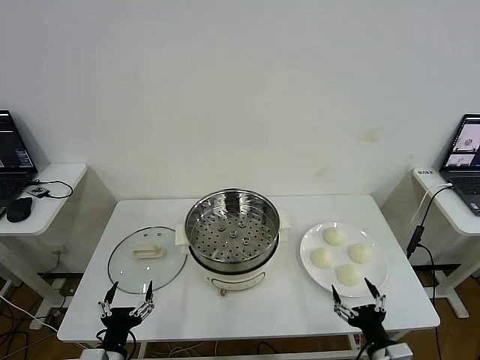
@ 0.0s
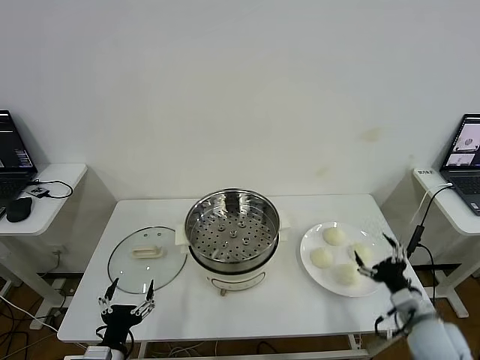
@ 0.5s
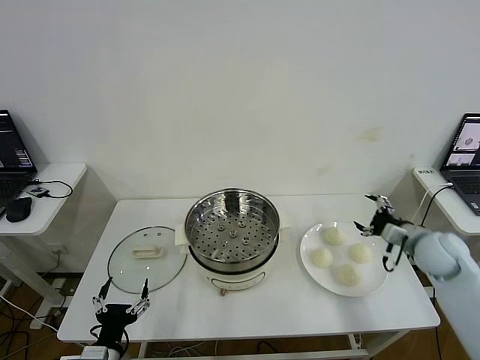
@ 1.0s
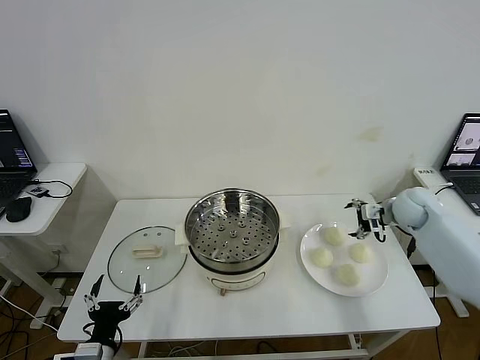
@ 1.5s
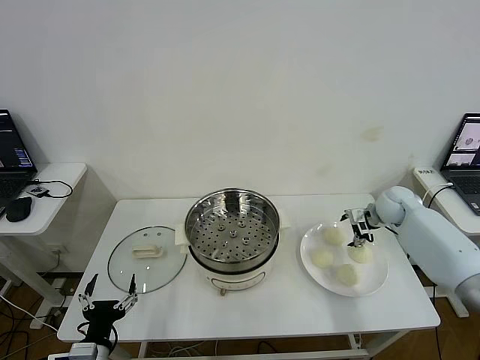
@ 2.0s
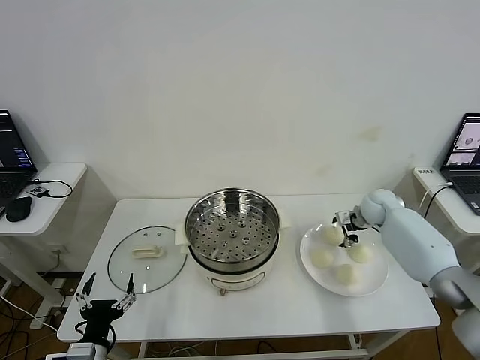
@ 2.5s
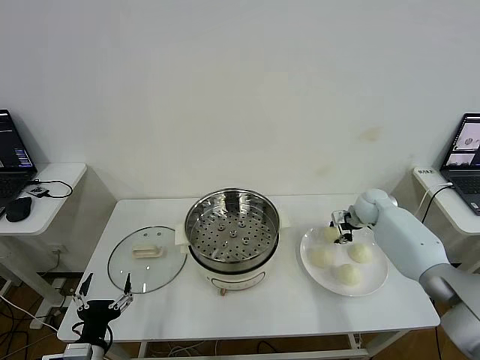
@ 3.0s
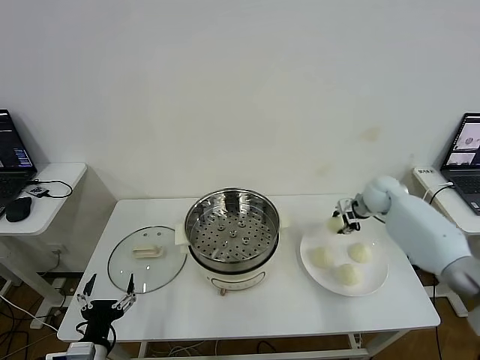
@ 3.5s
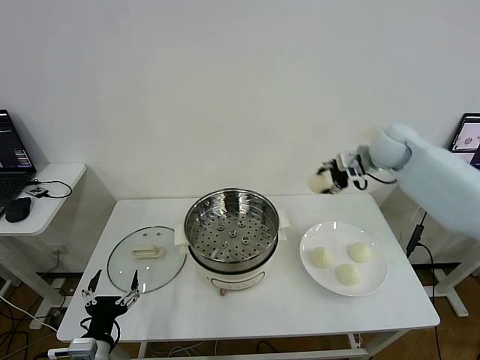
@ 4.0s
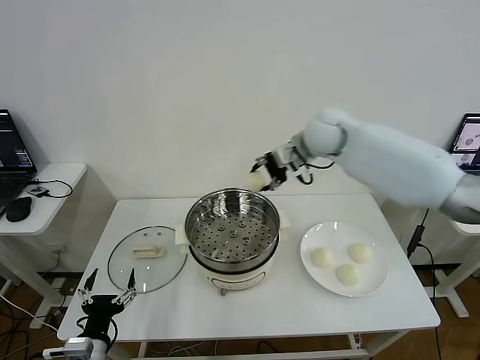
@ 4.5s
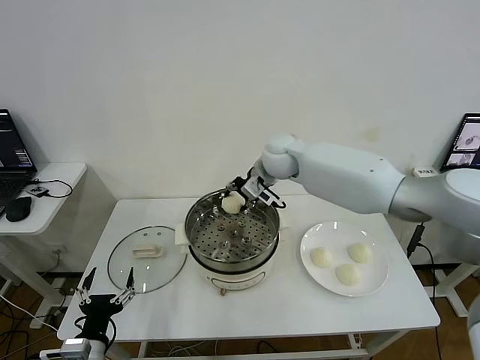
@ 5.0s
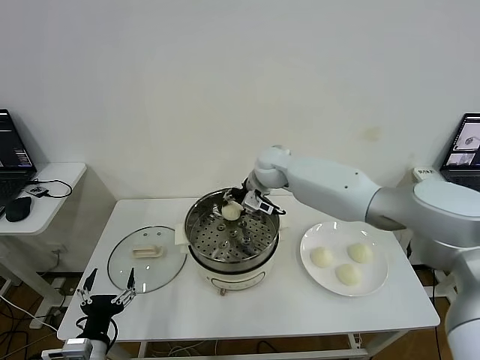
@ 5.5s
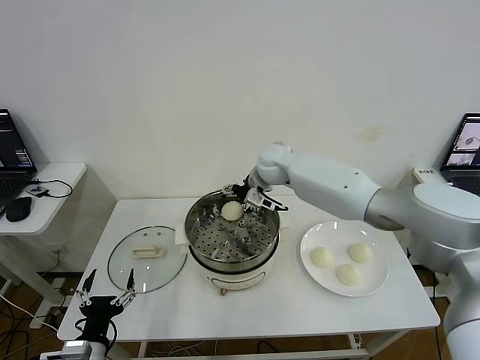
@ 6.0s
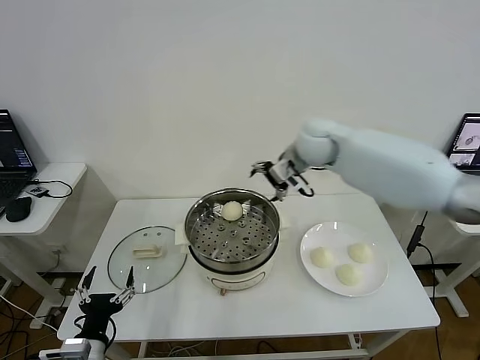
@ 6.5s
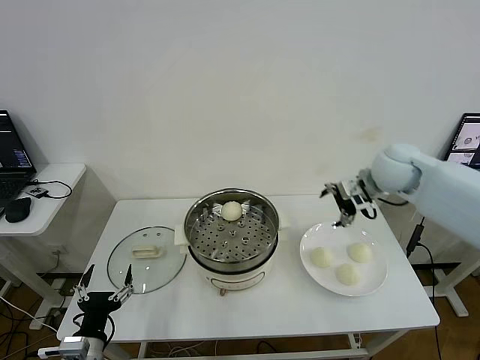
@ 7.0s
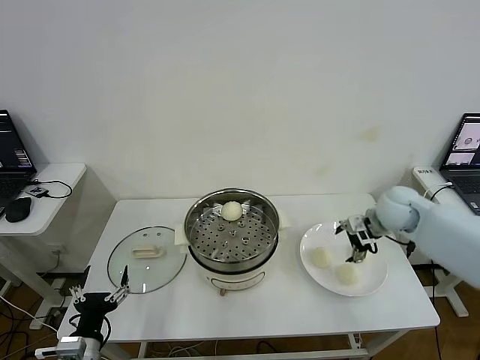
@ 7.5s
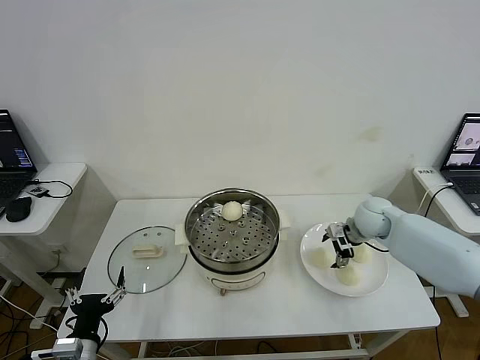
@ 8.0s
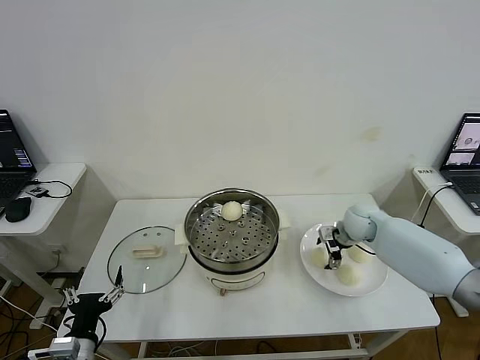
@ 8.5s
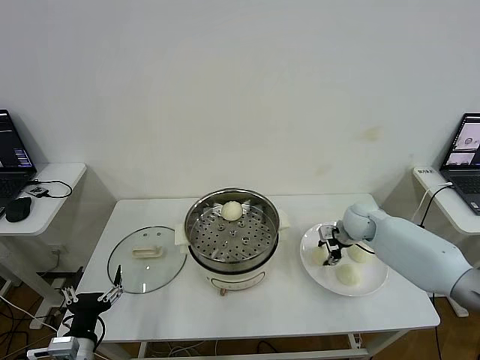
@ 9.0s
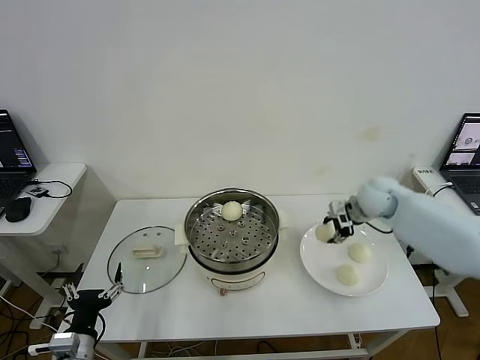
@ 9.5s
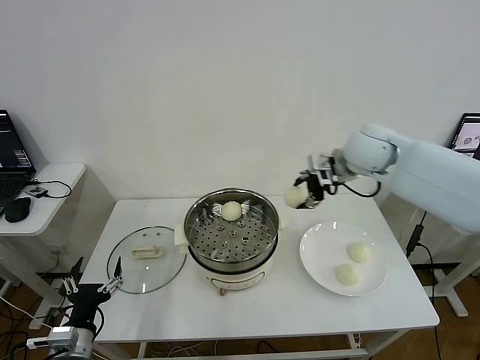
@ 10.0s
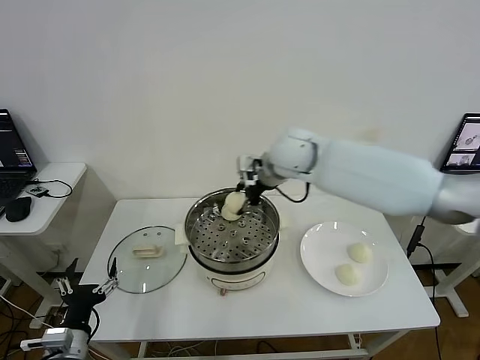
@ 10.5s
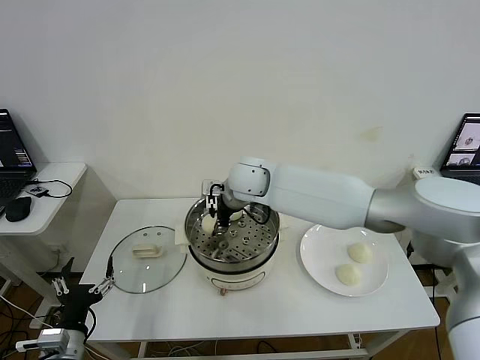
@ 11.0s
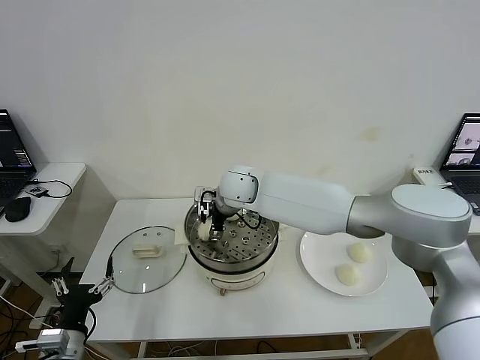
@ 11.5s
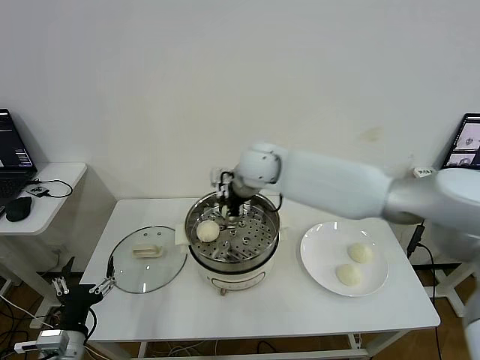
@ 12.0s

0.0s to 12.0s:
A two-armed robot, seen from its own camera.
Step, 0.0s to 3.0s: Grasp the baozi in the plate with right gripper.
Step, 3.5s to 5.5s: Place the baozi on the steamer with right gripper.
Step, 6.0s to 9.0s: Grasp the baozi in the plate with right gripper.
Step, 9.5s to 11.5s: Place the baozi on the steamer with right gripper.
2.0s to 4.0s: The right gripper heads upward and to the left, covering approximately 20 cm, and closes its fingers.
4.0s to 6.0s: The right gripper heads to the left, covering some 20 cm, and opens.
6.0s to 8.0s: The right gripper goes some 25 cm to the right and downward.
8.0s to 10.0s: The right gripper heads upward and to the left, covering about 25 cm, and closes its fingers.
10.0s to 12.0s: The right gripper is displaced to the left by approximately 15 cm, and opens up.

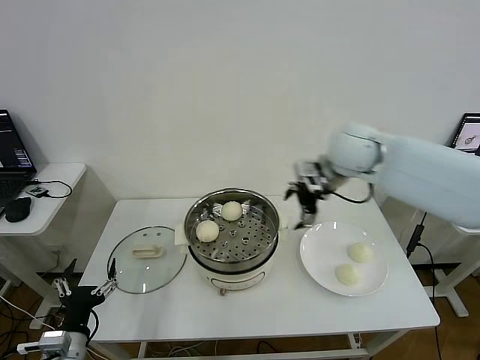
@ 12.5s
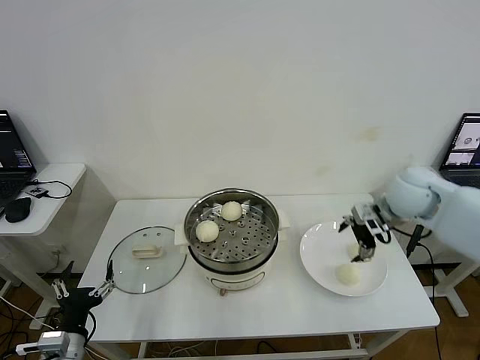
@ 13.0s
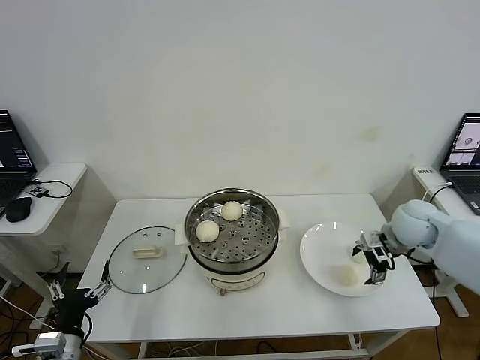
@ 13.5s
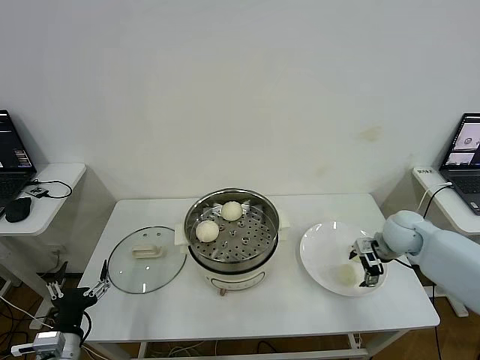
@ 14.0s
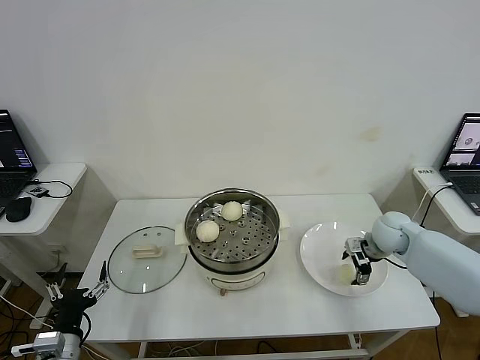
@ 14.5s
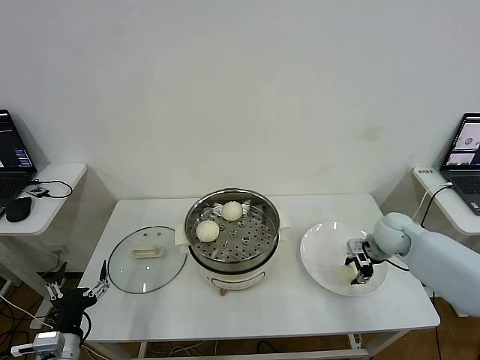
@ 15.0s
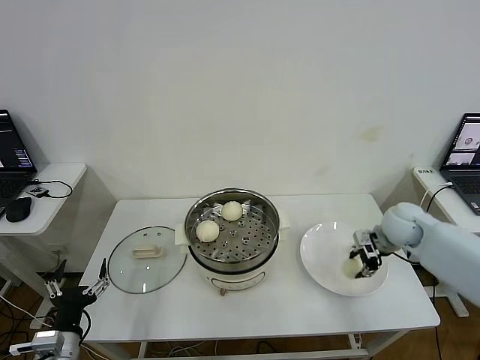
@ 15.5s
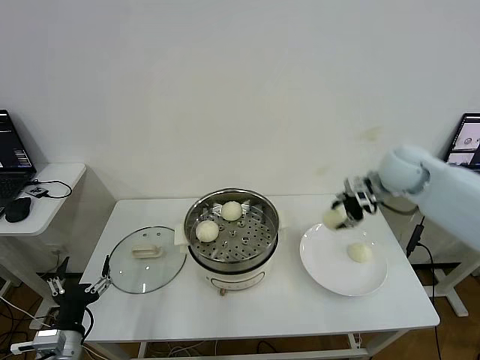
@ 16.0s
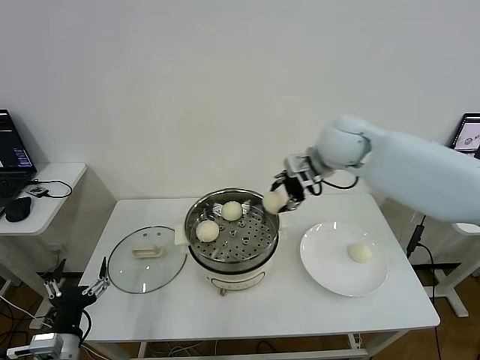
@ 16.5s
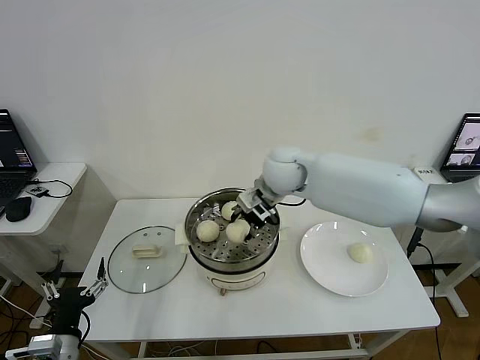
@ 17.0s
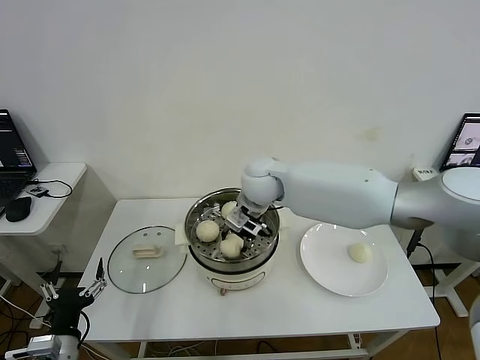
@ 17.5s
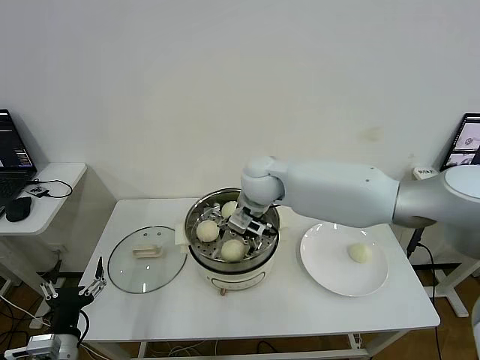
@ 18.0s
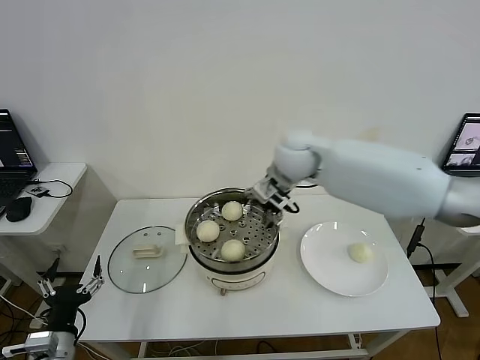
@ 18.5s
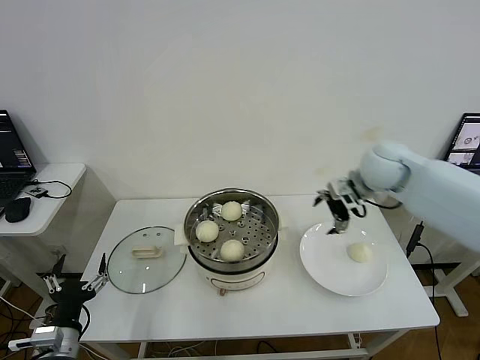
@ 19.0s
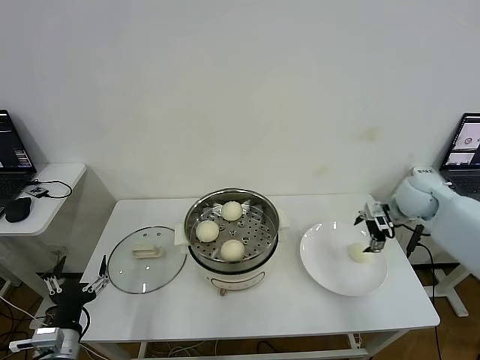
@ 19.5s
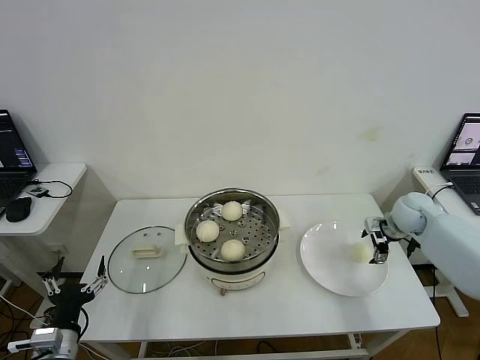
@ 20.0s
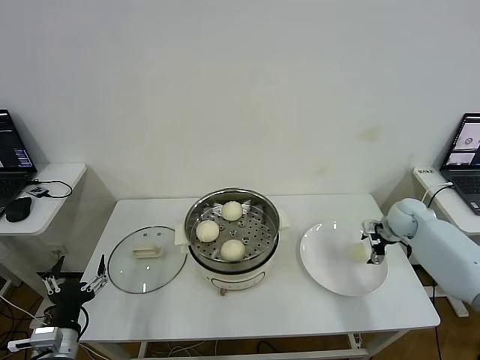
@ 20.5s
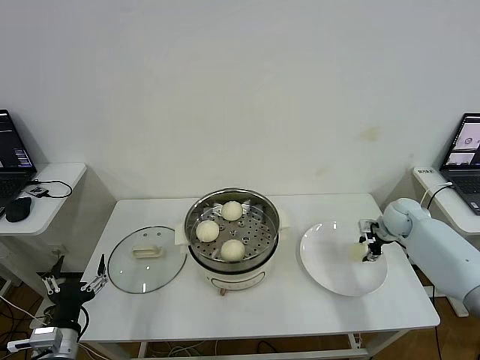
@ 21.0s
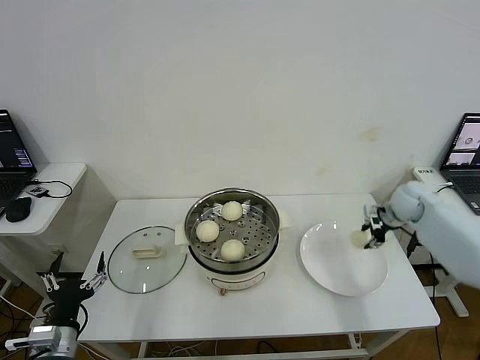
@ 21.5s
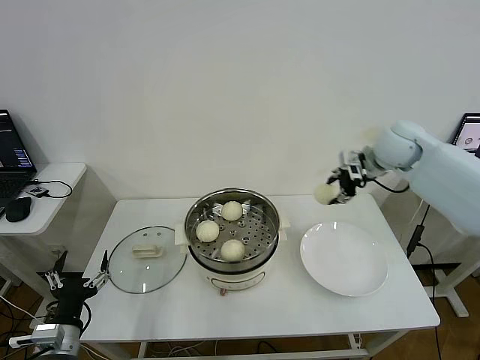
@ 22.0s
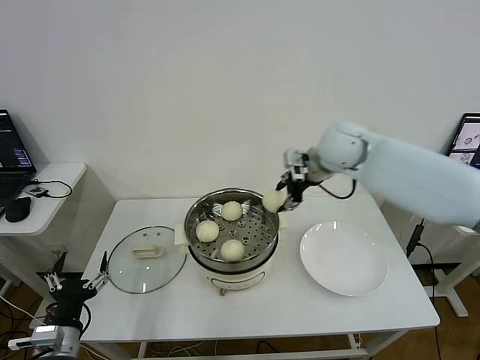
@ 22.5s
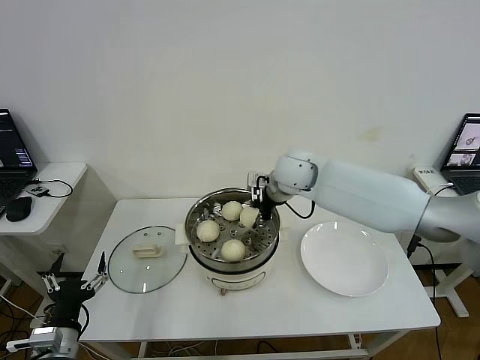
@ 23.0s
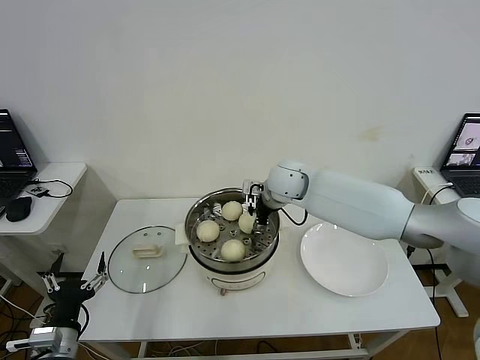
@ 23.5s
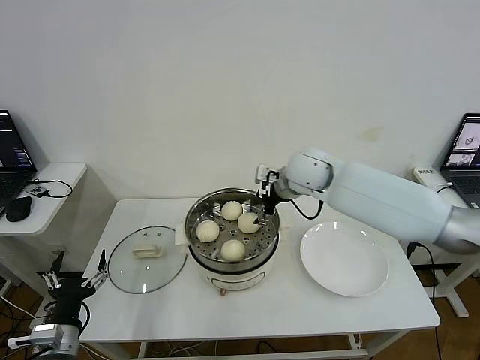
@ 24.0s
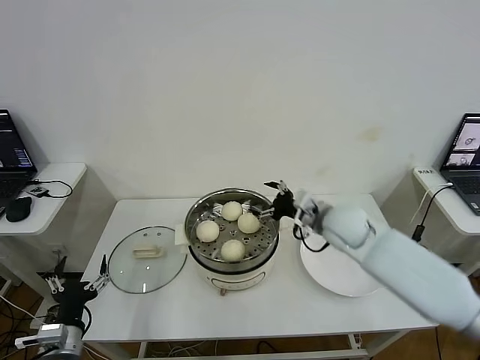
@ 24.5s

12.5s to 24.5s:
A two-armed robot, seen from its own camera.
Step, 12.5s to 15.0s: Grasp the baozi in the plate with right gripper.
Step, 15.5s to 17.5s: Place the baozi on the steamer with right gripper.
Step, 18.0s to 20.5s: Grasp the baozi in the plate with right gripper.
Step, 21.5s to 23.5s: Place the baozi on the steamer with right gripper.
12.5s to 14.5s: The right gripper shifts some 25 cm downward and to the right.
14.5s to 16.5s: The right gripper goes roughly 30 cm upward and to the left, and closes up.
16.5s to 18.5s: The right gripper travels to the left by some 5 cm, and opens.
18.5s to 20.5s: The right gripper shifts some 40 cm to the right and downward.
20.5s to 22.5s: The right gripper moves to the left and upward, about 30 cm, and closes up.
22.5s to 24.5s: The right gripper moves up and down over about 15 cm, changing direction 2 times, and opens.

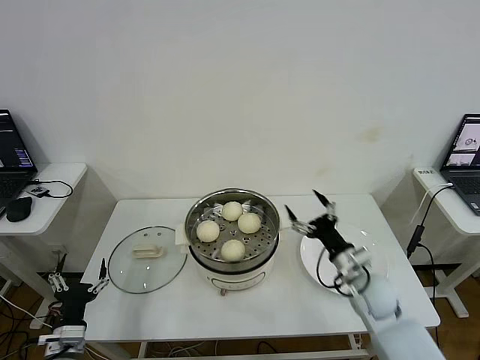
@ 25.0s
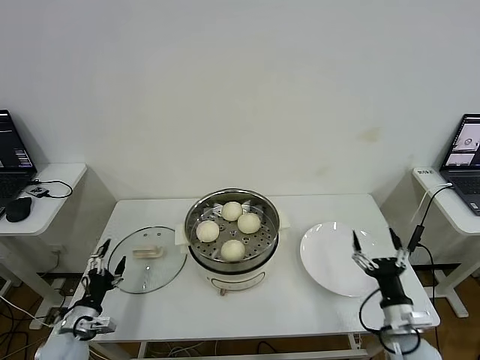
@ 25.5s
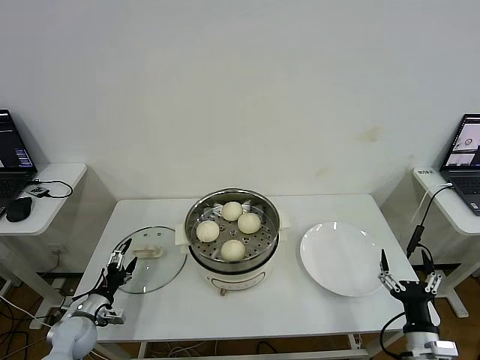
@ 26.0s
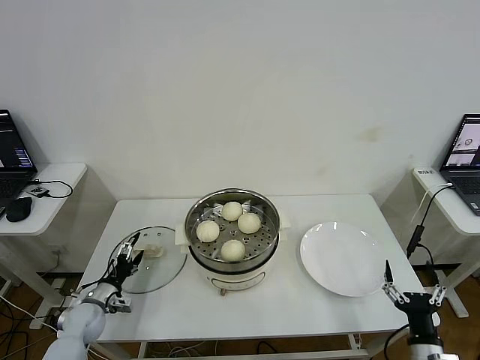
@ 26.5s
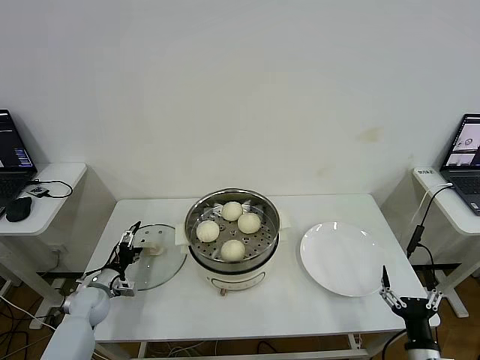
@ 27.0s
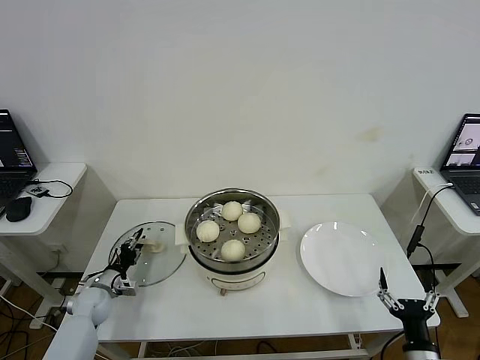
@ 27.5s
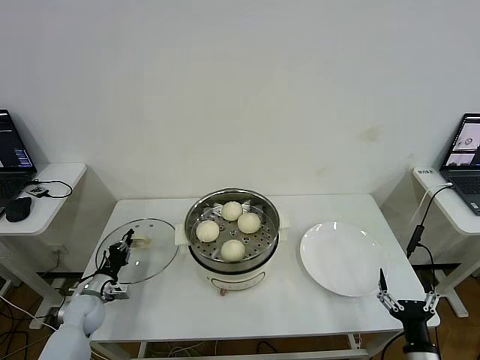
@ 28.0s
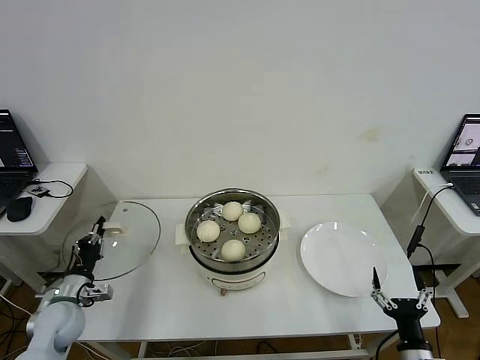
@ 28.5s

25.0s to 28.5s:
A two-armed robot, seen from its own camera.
Step, 25.0s to 27.5s: Grasp the pot lid with left gripper.
25.0s to 27.0s: The right gripper moves backward, to the right and downward, about 25 cm. The left gripper heads forward and downward, covering approximately 20 cm.
27.0s to 28.5s: The left gripper is displaced upward and backward by about 10 cm, and closes up.
